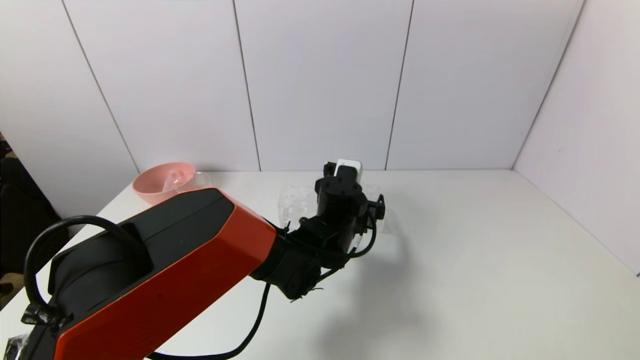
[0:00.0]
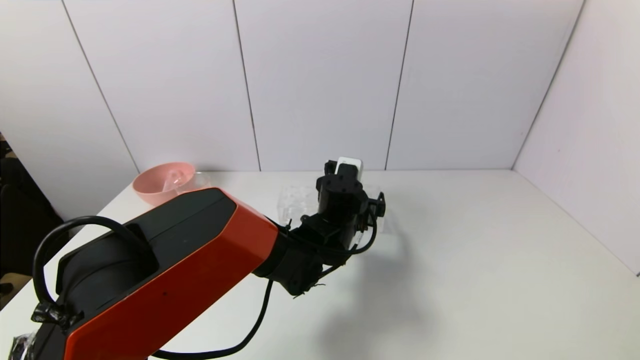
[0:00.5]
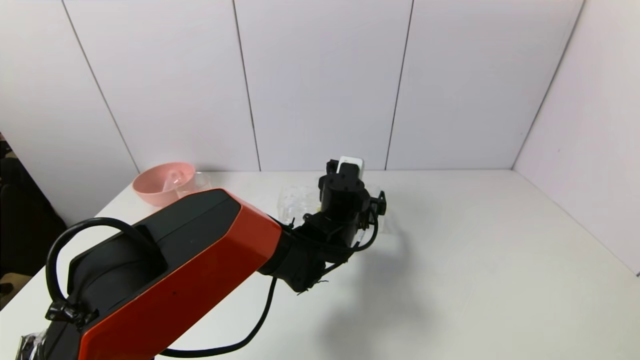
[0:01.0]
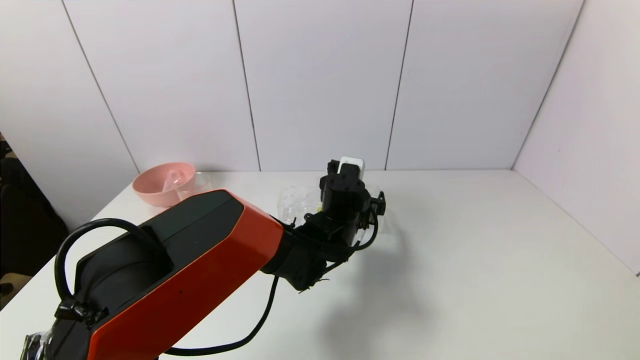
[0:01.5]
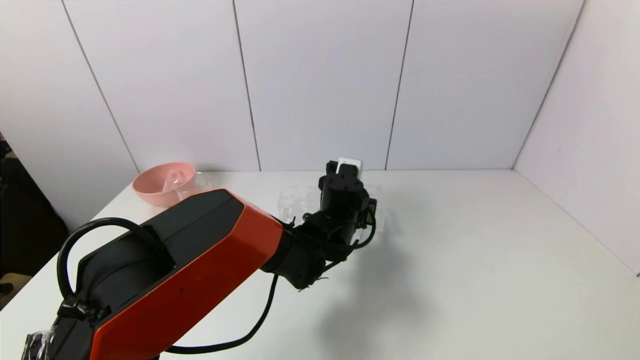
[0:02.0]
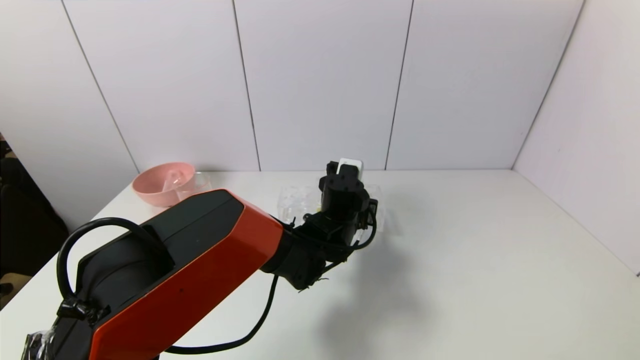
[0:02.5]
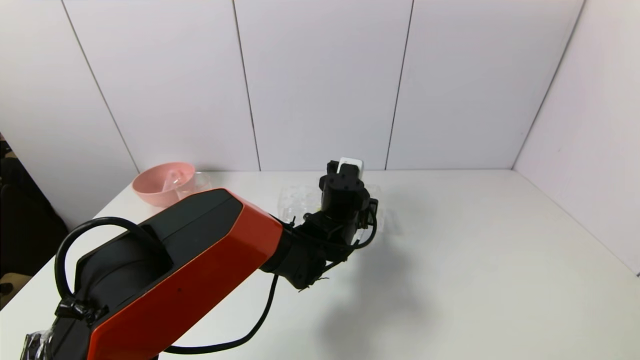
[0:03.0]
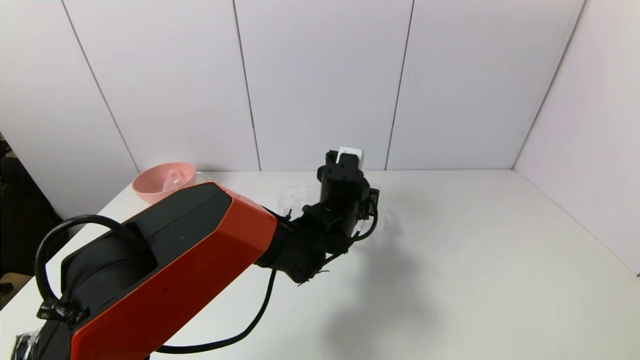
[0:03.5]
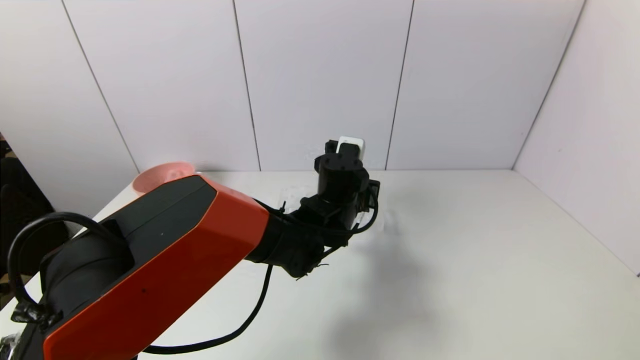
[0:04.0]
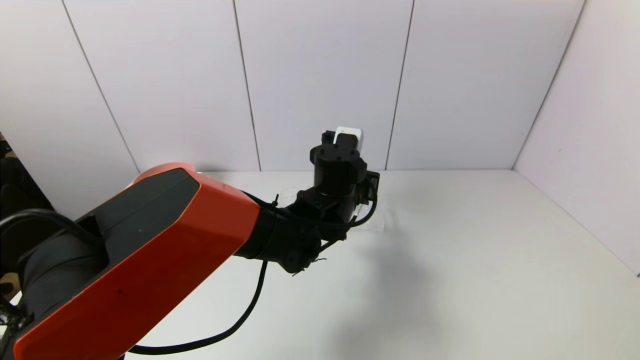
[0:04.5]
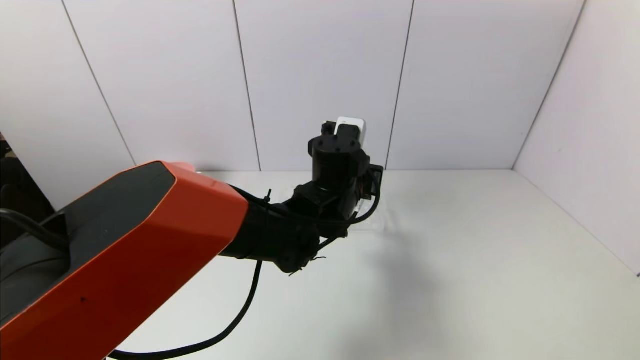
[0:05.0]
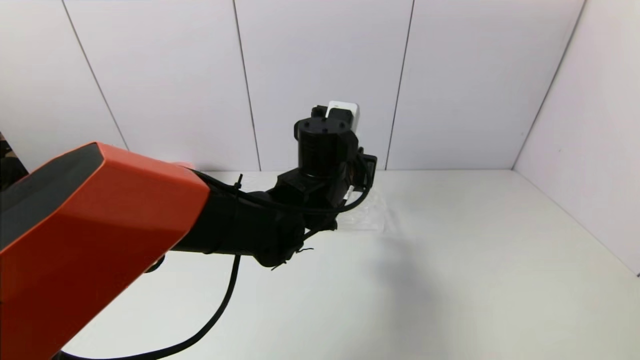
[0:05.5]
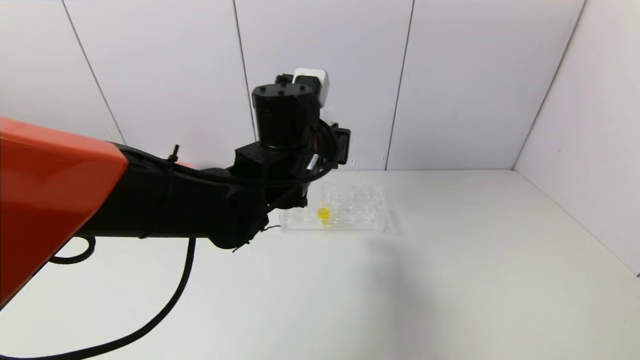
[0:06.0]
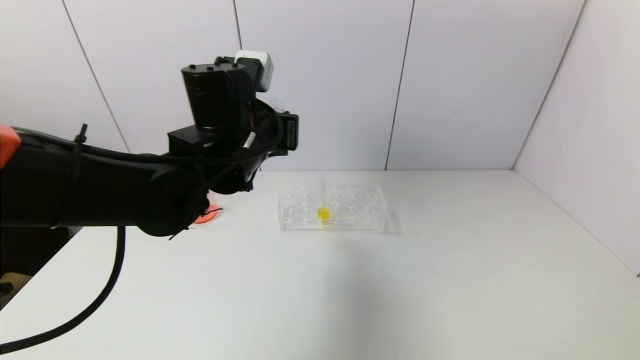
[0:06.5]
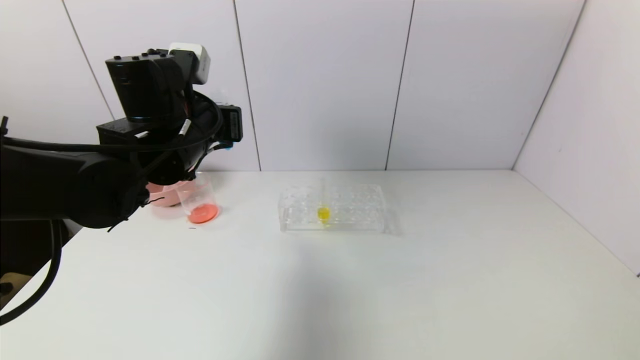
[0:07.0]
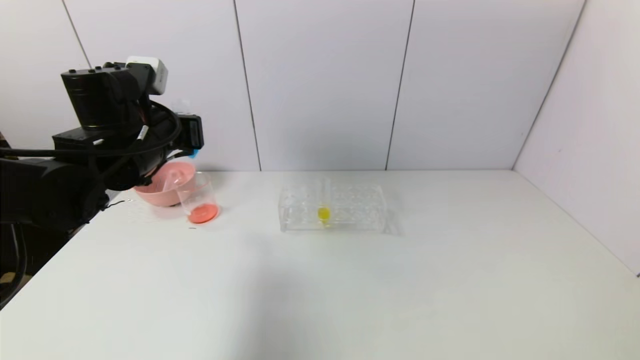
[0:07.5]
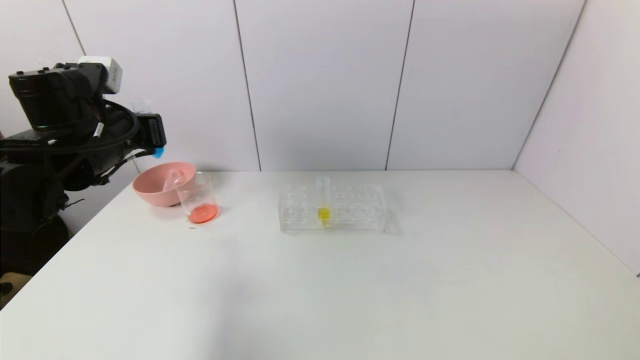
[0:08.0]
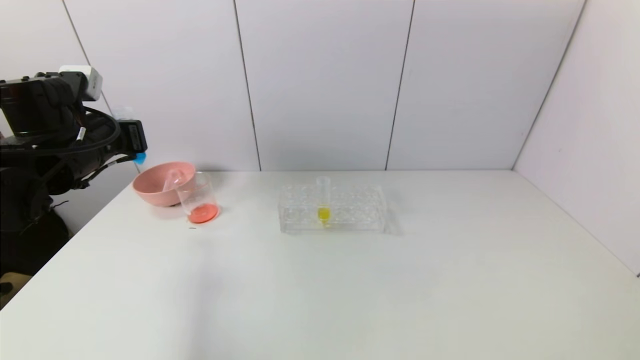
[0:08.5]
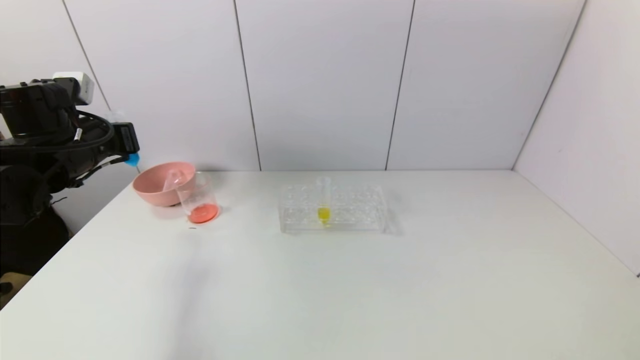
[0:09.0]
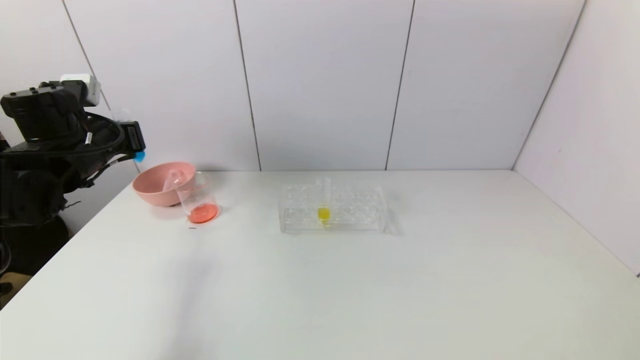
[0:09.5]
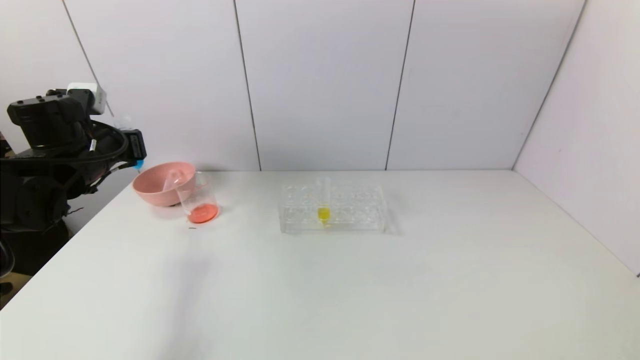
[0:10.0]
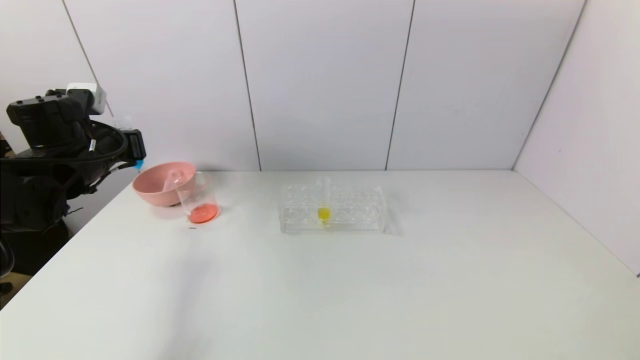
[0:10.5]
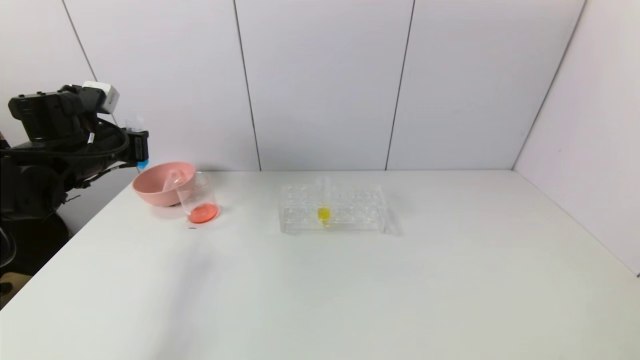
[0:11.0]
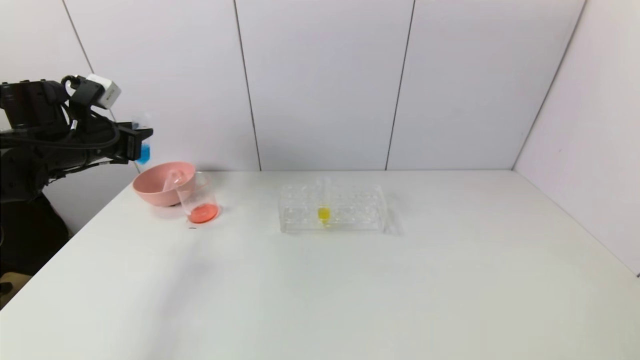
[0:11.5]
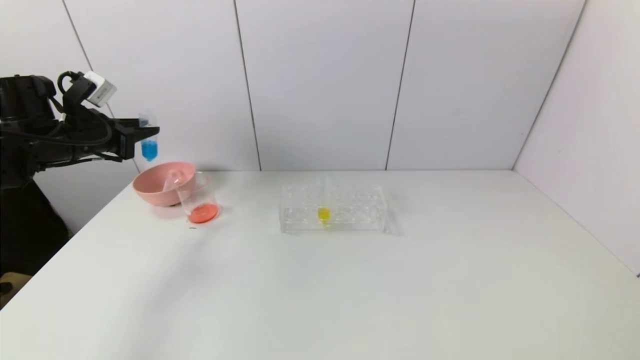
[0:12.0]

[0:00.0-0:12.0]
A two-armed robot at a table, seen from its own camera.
Task of the whole recording: pick up the test tube with red pigment and the test tube with blue pigment by grippers and pour them into the container.
Step, 0.0 to 2.5 s: Grasp the blue reagent with the left gripper.
0.0 to 2.0 s: The left gripper closes up.
2.0 to 4.0 s: There are only small adjustments of the grippers.
4.0 to 6.0 s: The left gripper goes approximately 10 cm upward and to the left.
6.0 to 8.0 s: The left gripper shifts about 25 cm to the left.
8.0 to 10.0 s: The left gripper is displaced to the left by some 5 cm.
10.0 to 12.0 s: The left gripper shifts approximately 5 cm to the left.

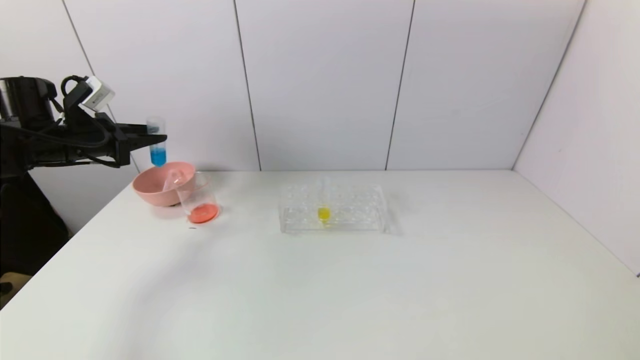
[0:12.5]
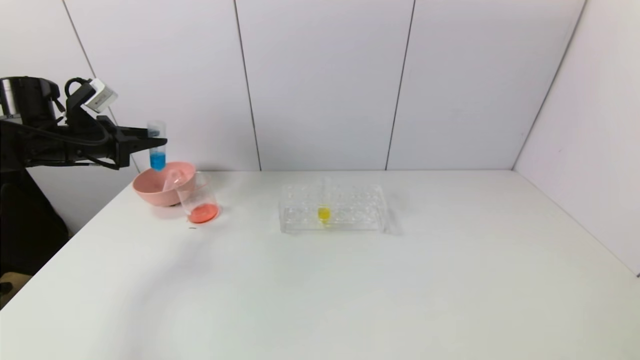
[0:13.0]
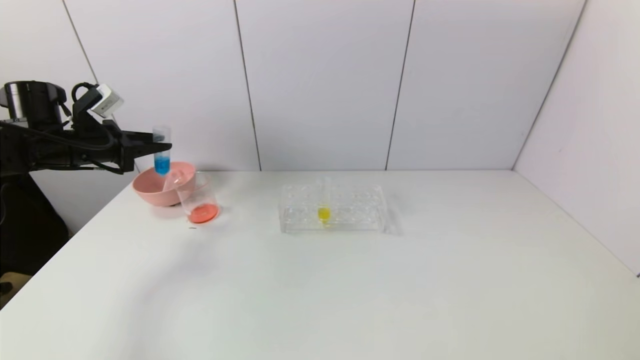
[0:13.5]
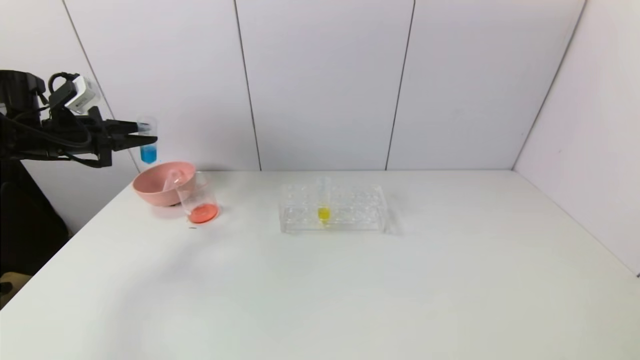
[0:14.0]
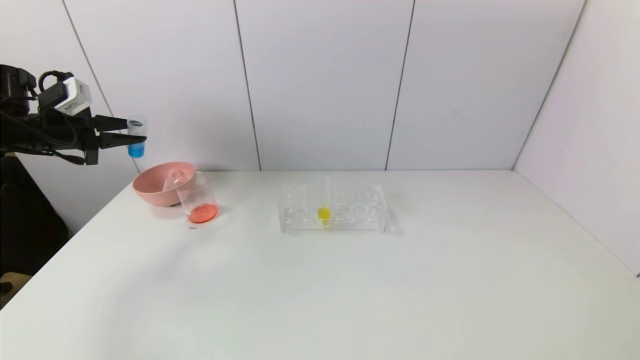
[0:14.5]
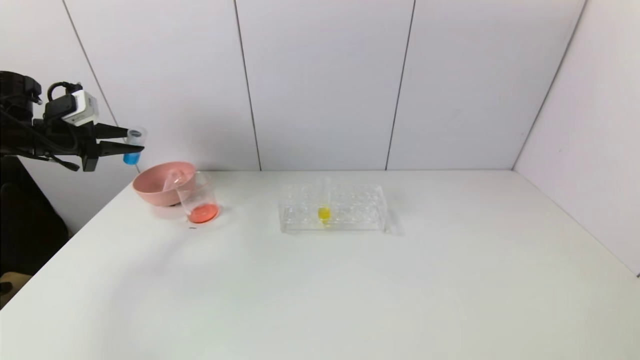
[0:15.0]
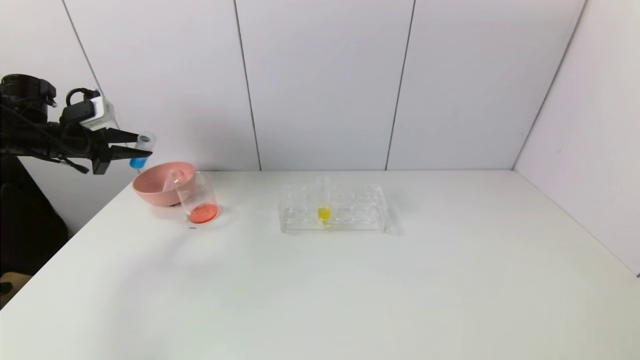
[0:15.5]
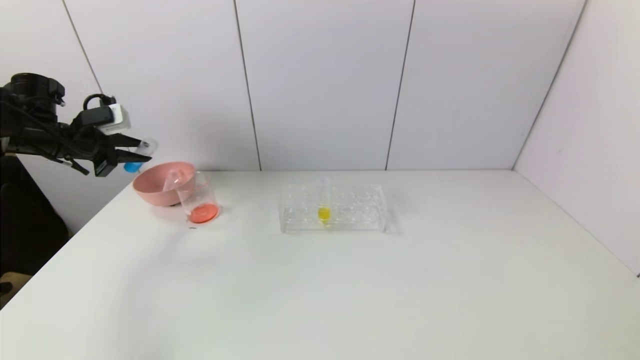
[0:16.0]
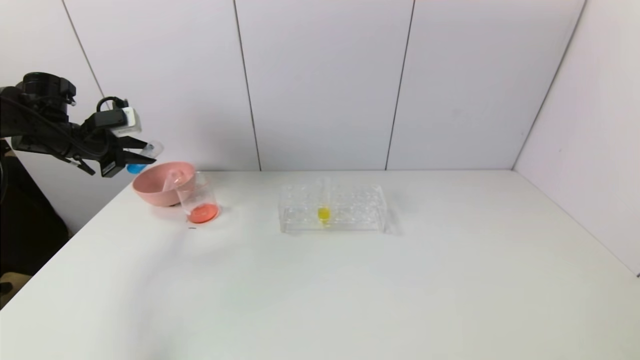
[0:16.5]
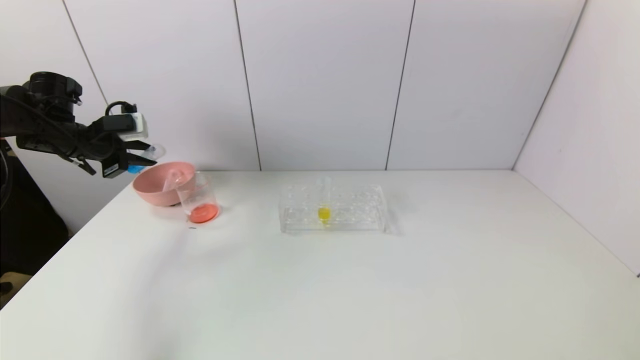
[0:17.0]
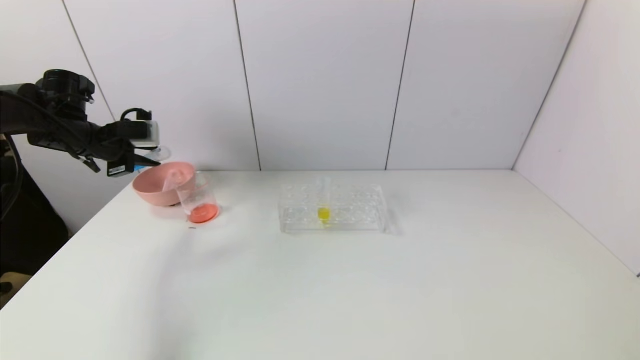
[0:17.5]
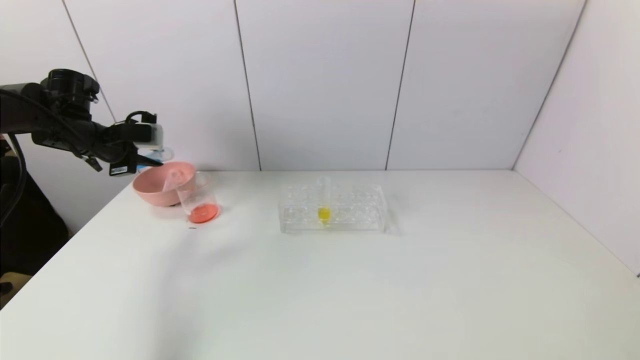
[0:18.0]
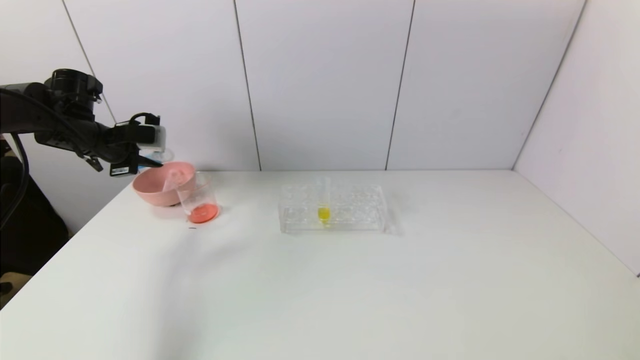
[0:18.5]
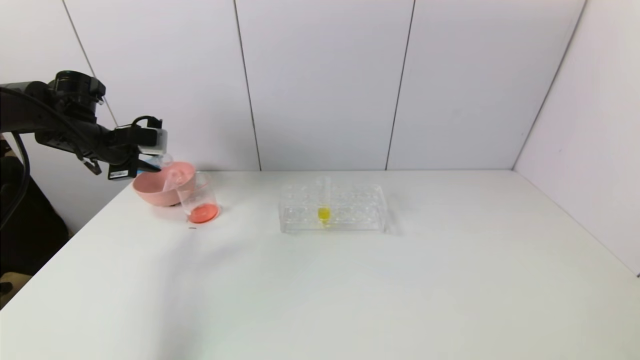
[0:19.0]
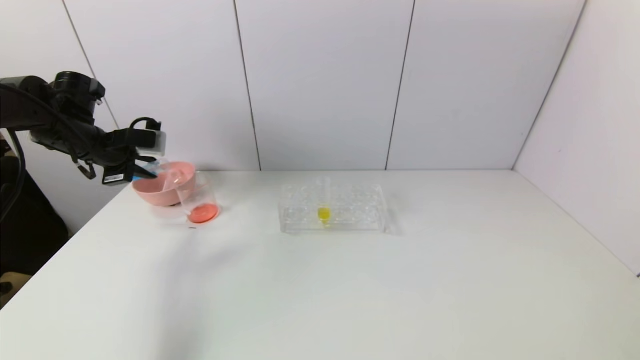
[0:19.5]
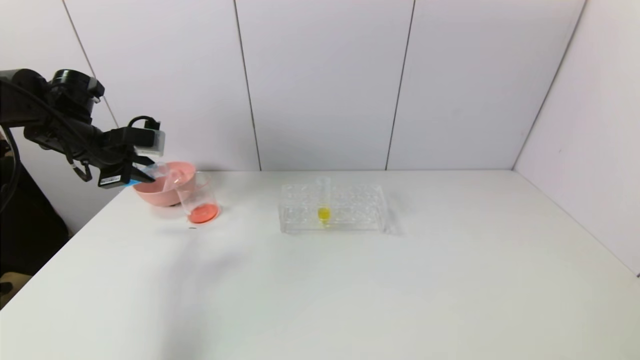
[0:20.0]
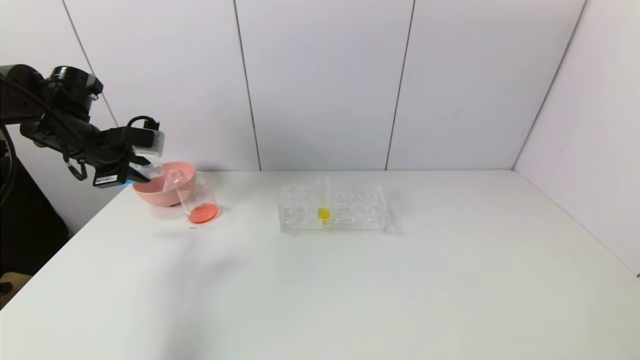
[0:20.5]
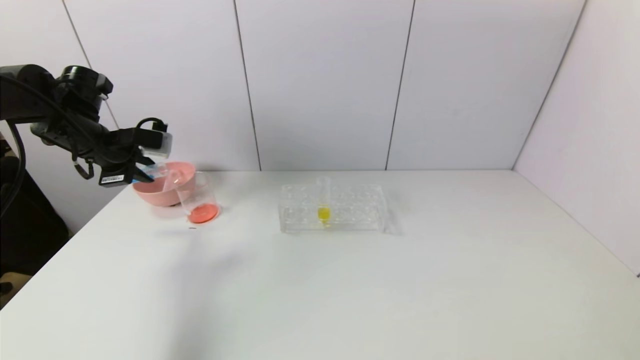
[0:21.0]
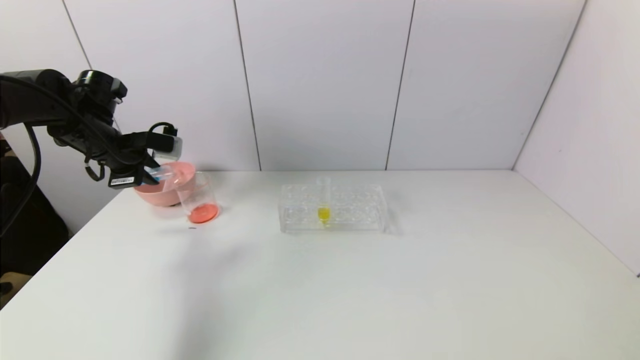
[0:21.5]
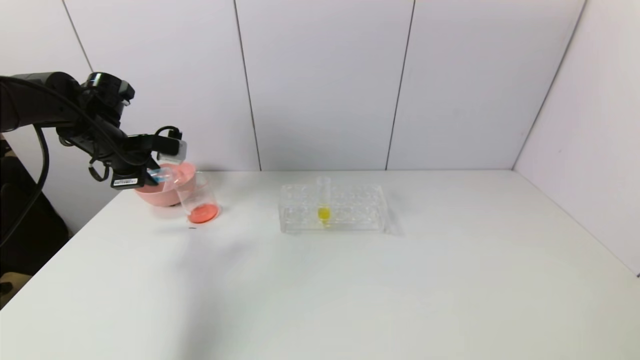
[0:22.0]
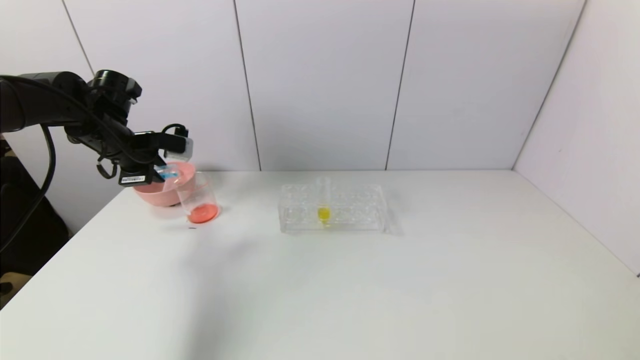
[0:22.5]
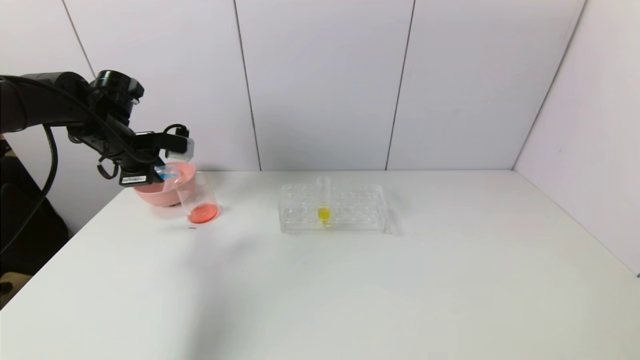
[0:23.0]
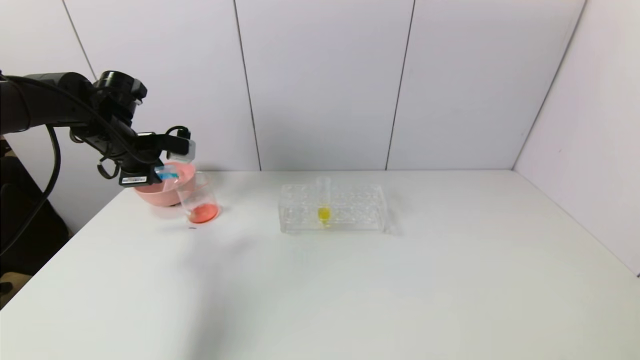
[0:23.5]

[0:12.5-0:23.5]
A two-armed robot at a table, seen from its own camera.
Task of the whole recording: pick up the test tube with red pigment and the test tube with blue pigment by grippers and pour them into the container.
14.5 to 16.0 s: The grippers stay close to where they were, moving slightly.
18.0 to 21.5 s: The grippers stay close to where they were, moving slightly.
21.5 to 23.5 s: The grippers stay close to where they were, moving slightly.
